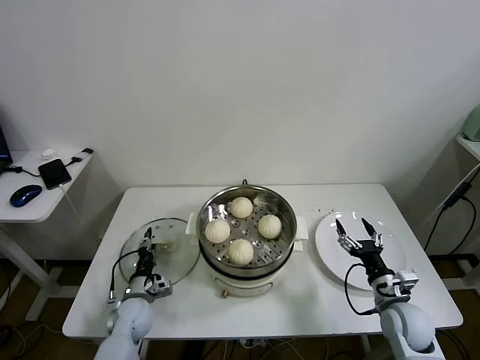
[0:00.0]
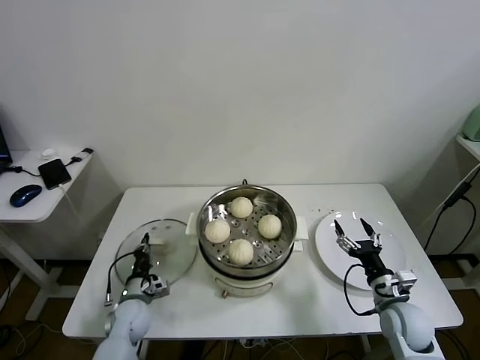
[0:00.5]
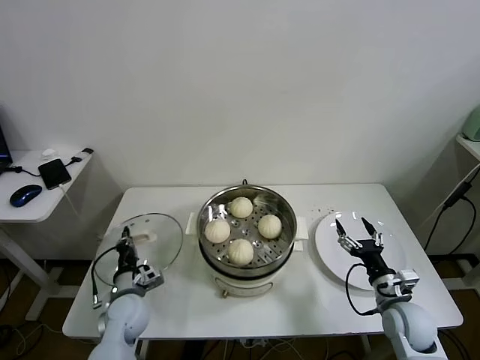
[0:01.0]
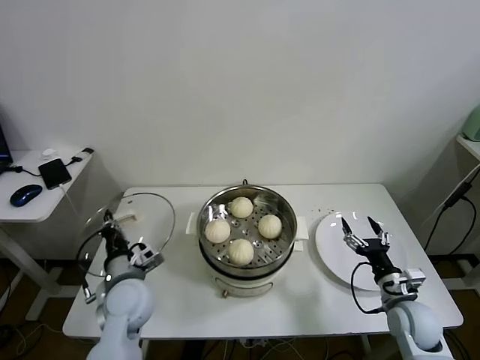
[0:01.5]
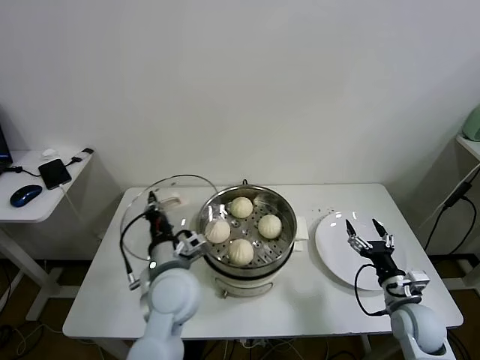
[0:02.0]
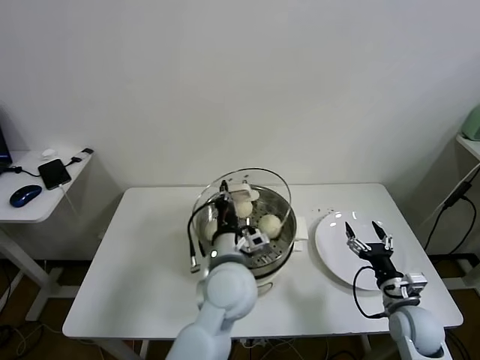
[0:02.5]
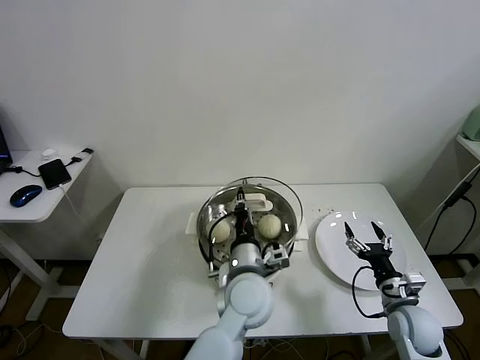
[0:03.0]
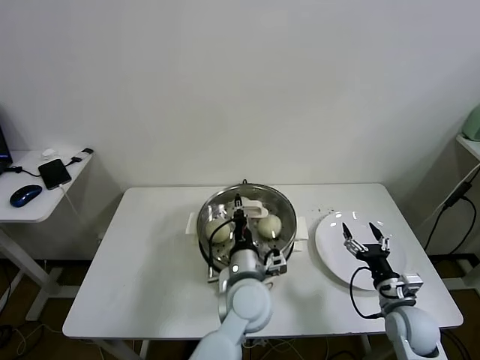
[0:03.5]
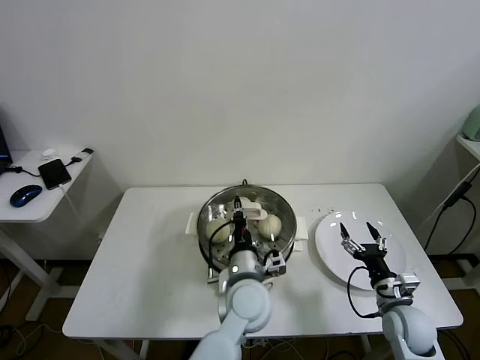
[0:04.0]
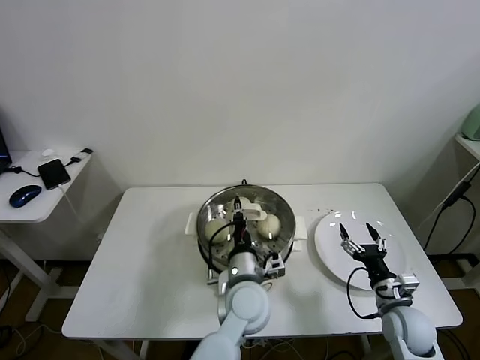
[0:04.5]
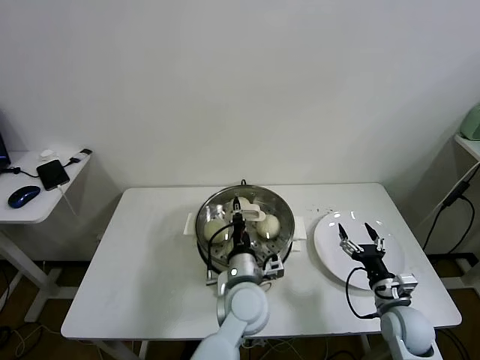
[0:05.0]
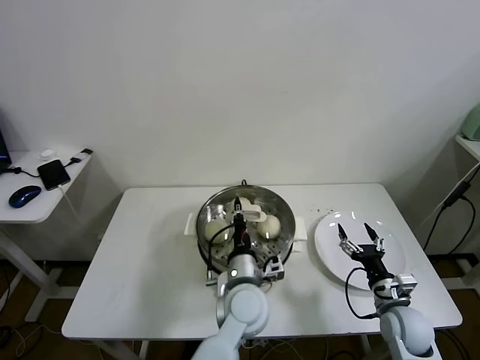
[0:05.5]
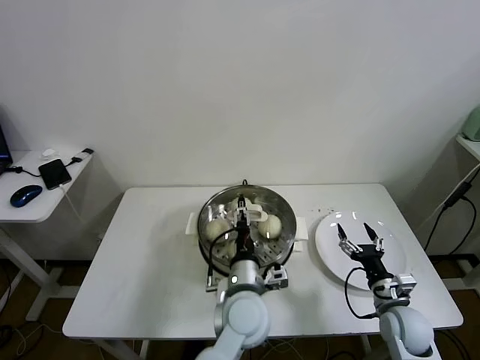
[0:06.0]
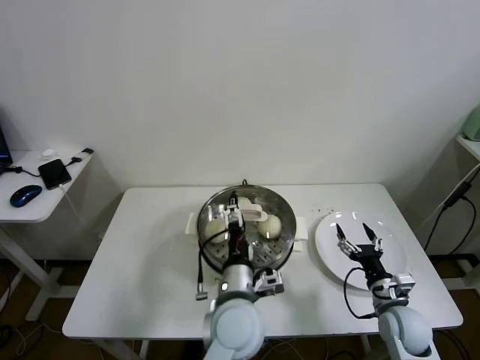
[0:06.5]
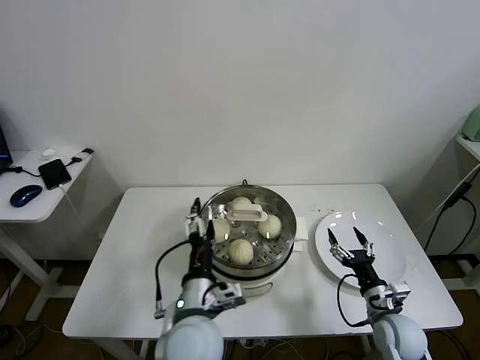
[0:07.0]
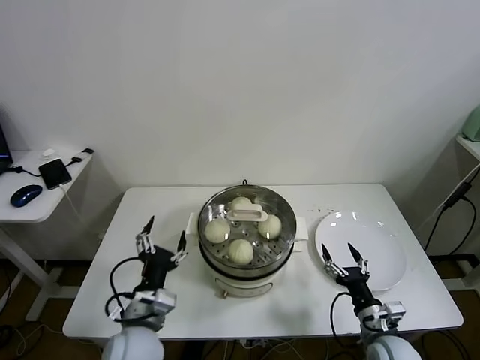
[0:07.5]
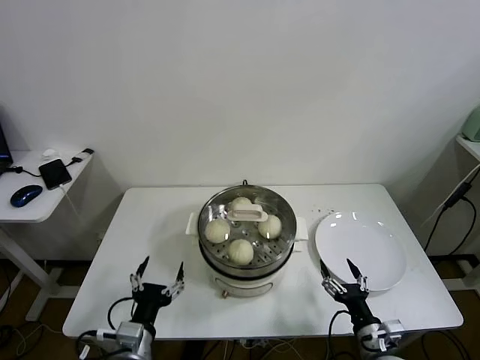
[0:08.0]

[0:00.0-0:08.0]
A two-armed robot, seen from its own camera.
Task of the whole recording: take steamed baozi put them in steamer.
Step, 0:00.5 to 0:05.5: Place the pot lid on the steamer with left gripper.
0:00.0 to 0:02.0: The left gripper shifts about 25 cm upward and to the right, and closes its fingers.
0:02.0 to 0:04.0: The left gripper heads to the right, covering about 15 cm.
0:04.0 to 0:06.0: The left gripper opens its fingers.
0:06.0 to 0:08.0: The left gripper goes some 25 cm to the left and backward, and opens its fingers. The right gripper travels backward and to the left by approximately 10 cm.
